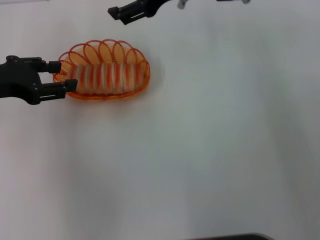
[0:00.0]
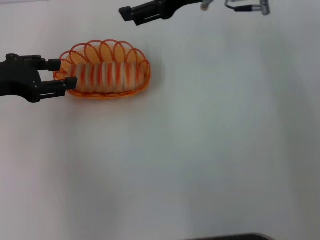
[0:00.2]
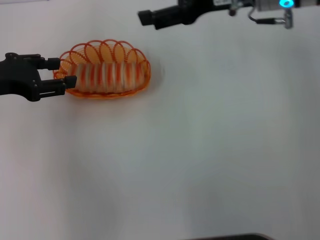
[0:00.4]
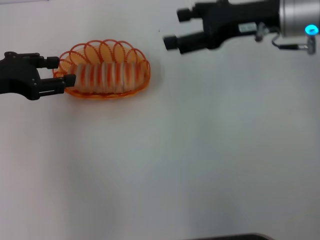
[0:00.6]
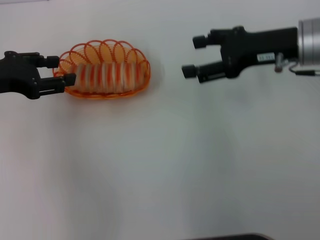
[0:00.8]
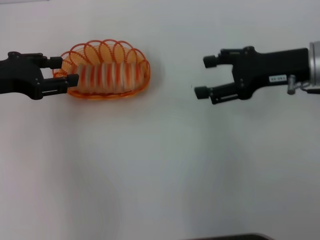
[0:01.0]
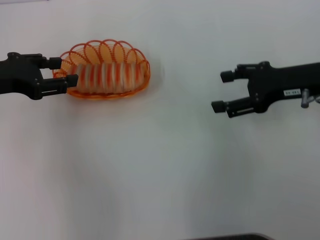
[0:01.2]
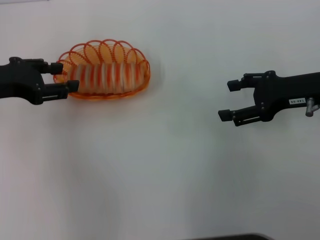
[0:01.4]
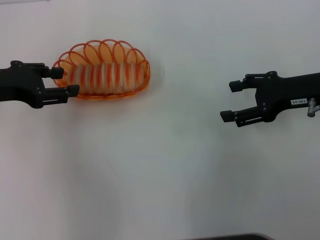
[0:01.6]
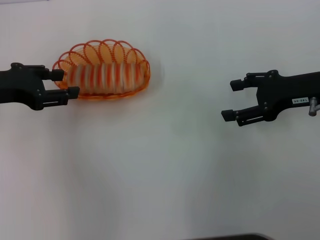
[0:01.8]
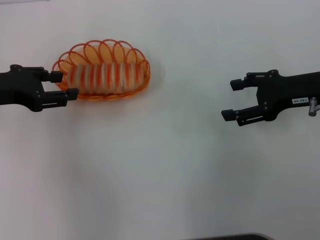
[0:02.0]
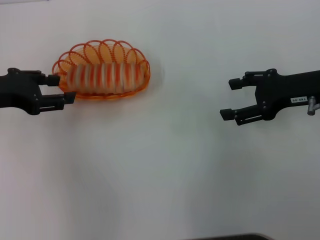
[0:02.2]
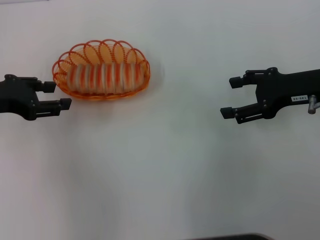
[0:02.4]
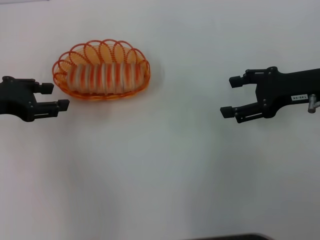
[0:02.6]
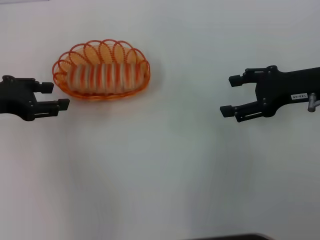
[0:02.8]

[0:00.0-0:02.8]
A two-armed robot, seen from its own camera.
0:00.0 to 0:01.4: The right gripper goes approximately 20 cm to the right, backward and downward.
0:01.4 to 0:02.8: The grippers move only a little.

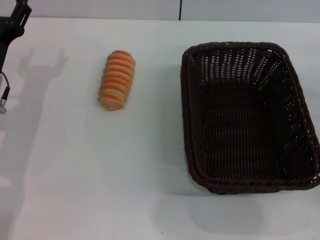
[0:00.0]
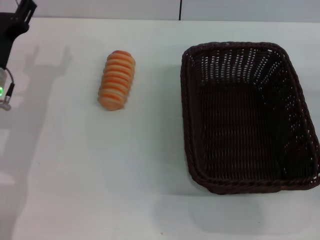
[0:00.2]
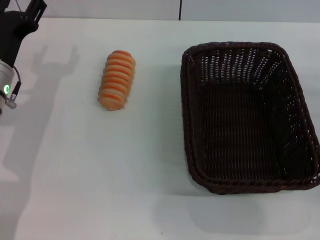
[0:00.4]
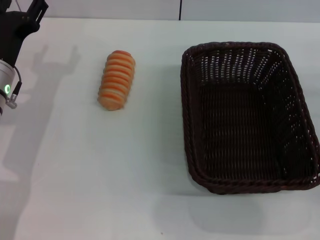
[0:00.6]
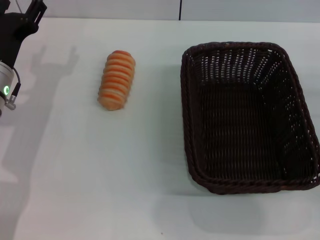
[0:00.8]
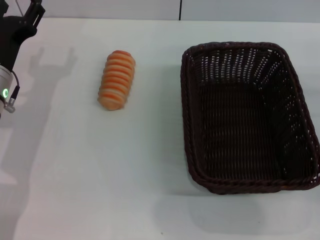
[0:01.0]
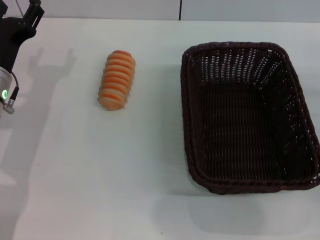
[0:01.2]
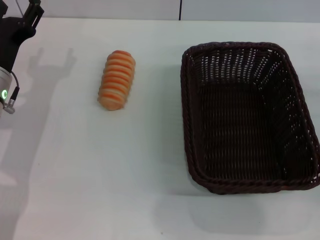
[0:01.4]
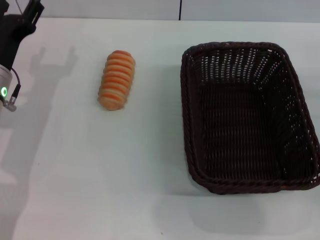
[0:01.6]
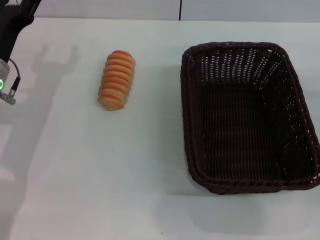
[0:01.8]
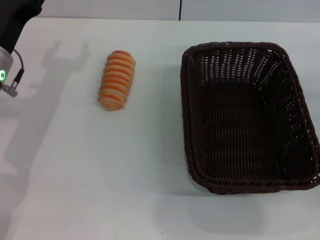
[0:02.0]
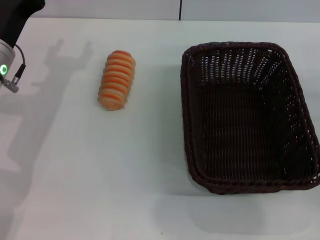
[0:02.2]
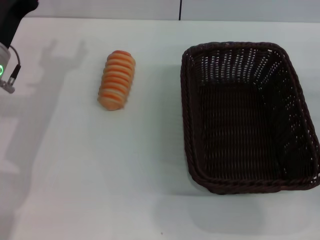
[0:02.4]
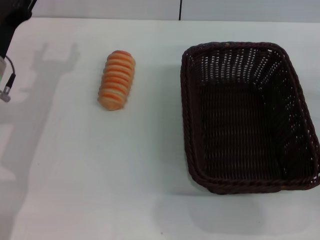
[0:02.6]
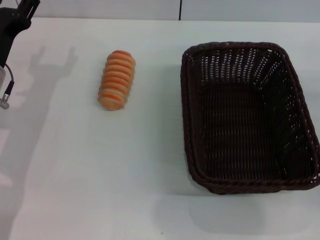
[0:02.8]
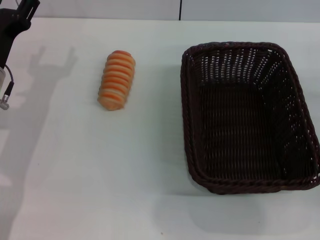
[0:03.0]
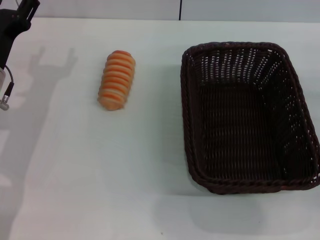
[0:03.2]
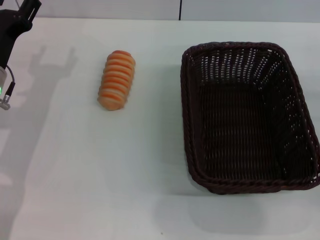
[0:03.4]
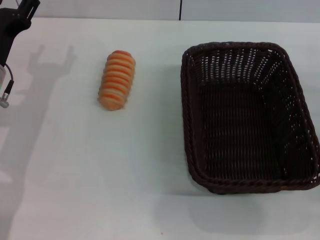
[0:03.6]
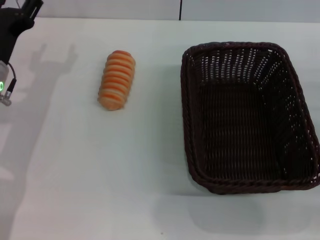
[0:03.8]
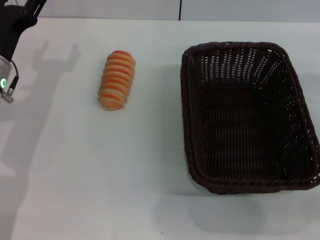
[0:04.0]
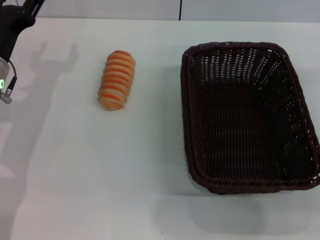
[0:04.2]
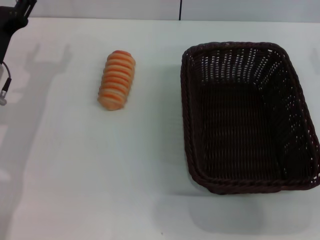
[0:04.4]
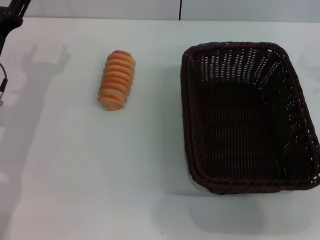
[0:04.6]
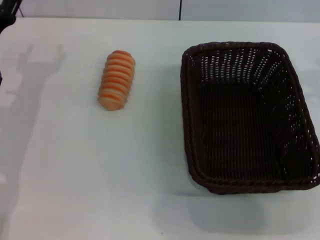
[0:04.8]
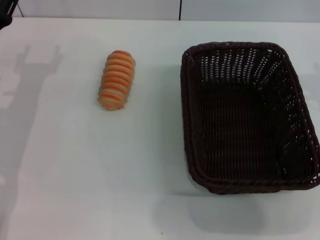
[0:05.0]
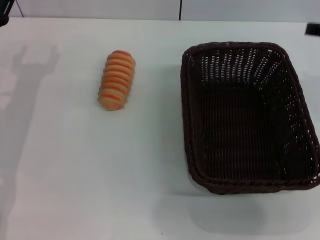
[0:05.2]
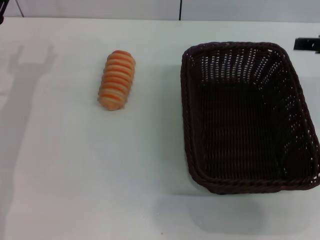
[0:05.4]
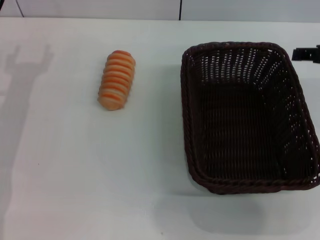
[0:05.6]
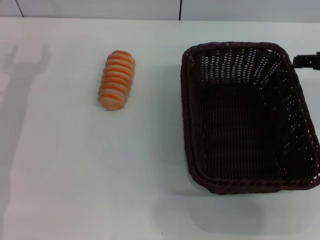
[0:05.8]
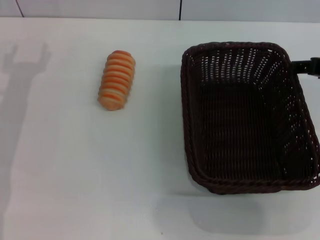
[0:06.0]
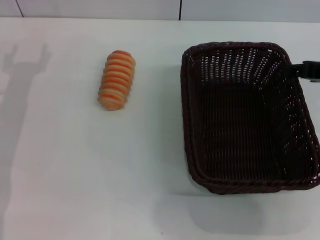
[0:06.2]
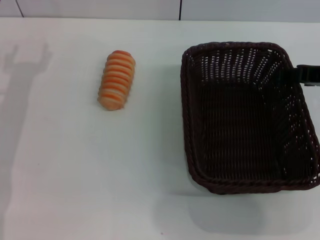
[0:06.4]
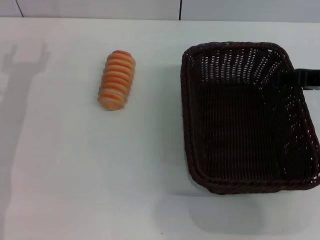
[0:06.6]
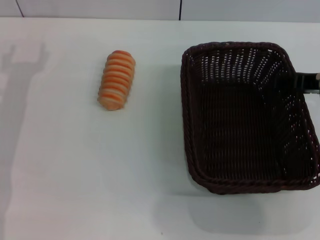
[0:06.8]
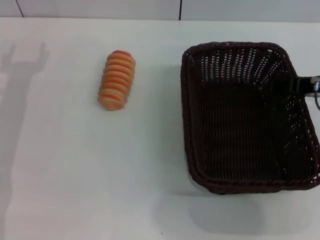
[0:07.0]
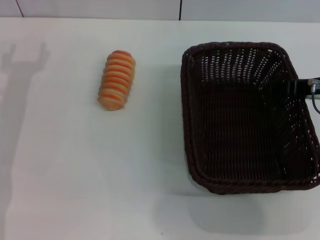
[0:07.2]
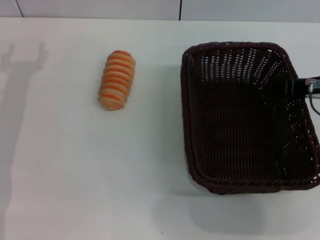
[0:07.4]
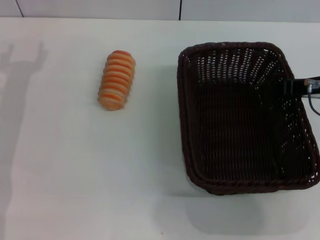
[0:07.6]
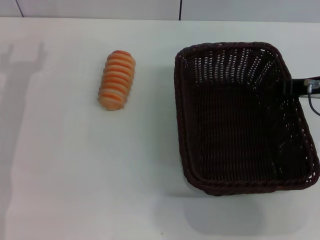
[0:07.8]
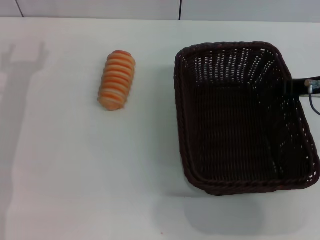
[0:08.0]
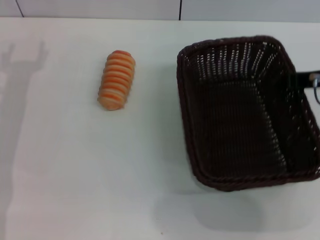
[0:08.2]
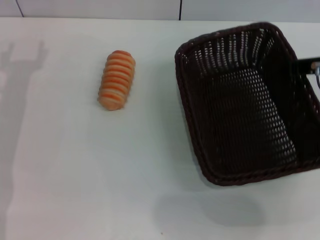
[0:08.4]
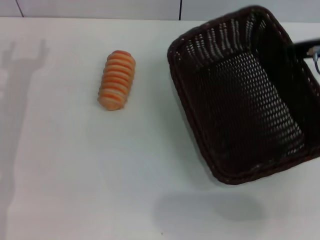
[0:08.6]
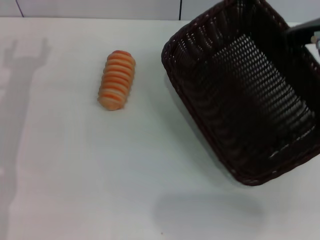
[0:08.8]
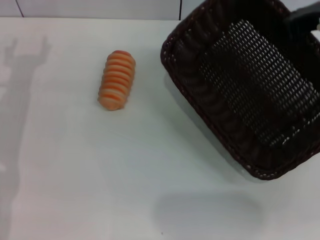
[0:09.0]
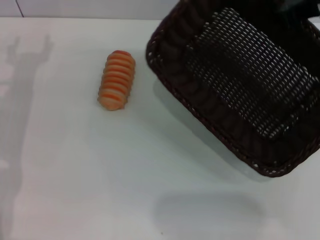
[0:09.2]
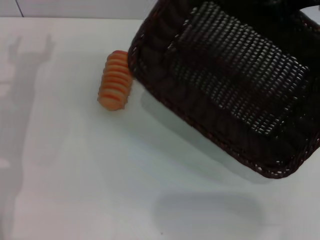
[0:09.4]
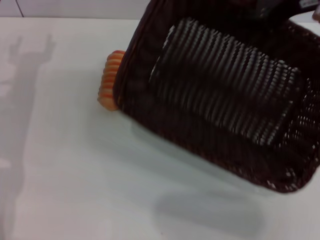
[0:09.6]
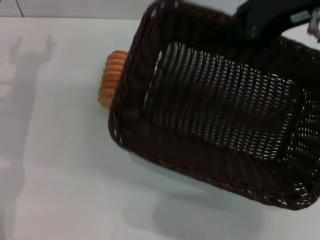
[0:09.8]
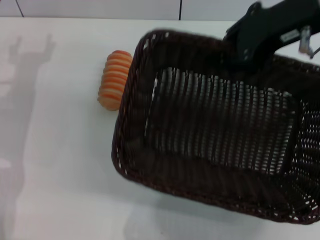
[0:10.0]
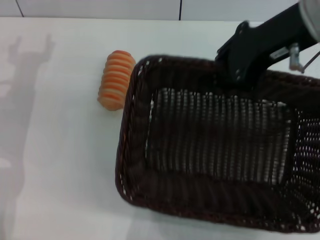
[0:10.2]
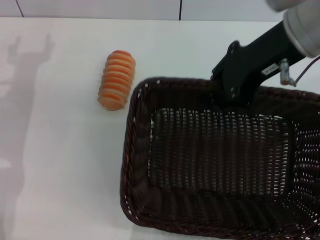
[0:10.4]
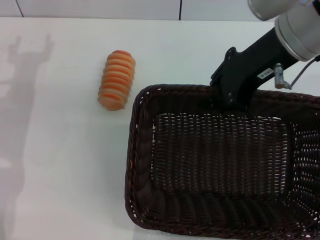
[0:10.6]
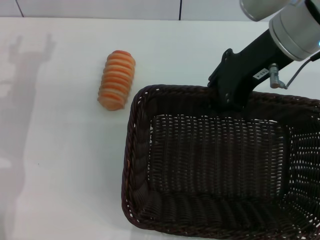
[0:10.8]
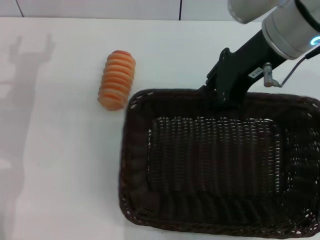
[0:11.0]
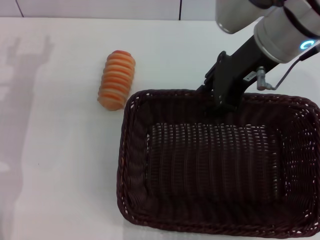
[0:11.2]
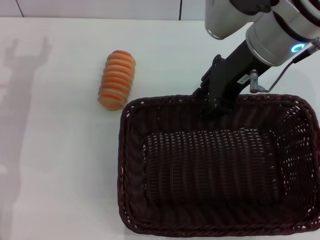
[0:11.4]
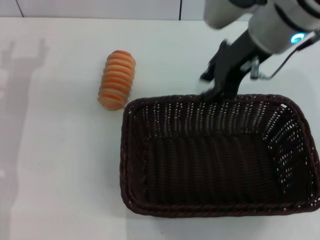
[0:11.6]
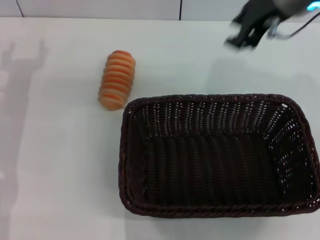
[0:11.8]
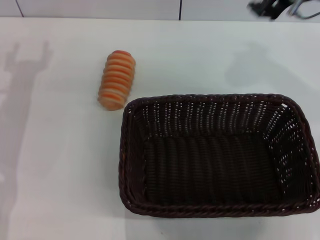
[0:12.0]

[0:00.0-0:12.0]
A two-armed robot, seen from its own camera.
Step, 0:00.0 to 0:08.6: Pick up the dark basket with the right gripper.
Step, 0:09.0 to 0:11.6: Place the dark basket in the center of view with the right gripper.
0:00.0 to 0:03.0: The grippers move only a little.
0:03.0 to 0:04.4: The right gripper shifts about 10 cm upward and to the left.
0:06.0 to 0:07.6: The grippers stay close to where they were, moving slightly.
0:07.6 to 0:09.0: The right gripper goes approximately 10 cm upward, and closes its fingers.
0:09.0 to 0:10.4: The right gripper is displaced to the left by some 10 cm.
0:10.4 to 0:12.0: The right gripper is displaced forward by roughly 5 cm, and opens.

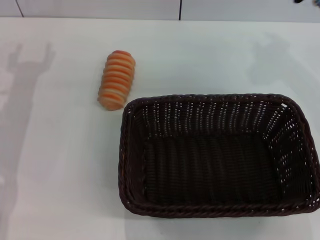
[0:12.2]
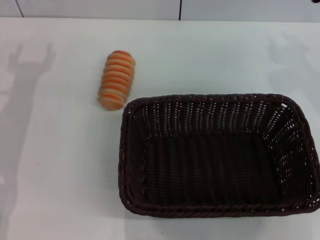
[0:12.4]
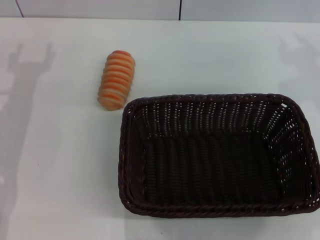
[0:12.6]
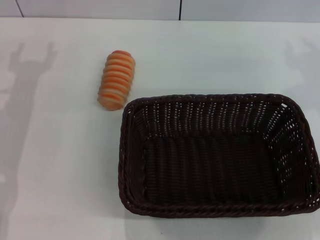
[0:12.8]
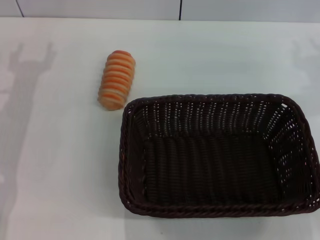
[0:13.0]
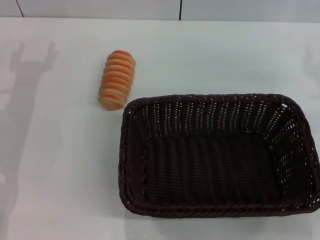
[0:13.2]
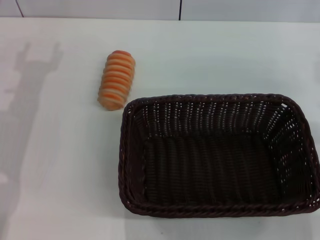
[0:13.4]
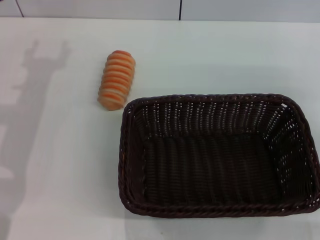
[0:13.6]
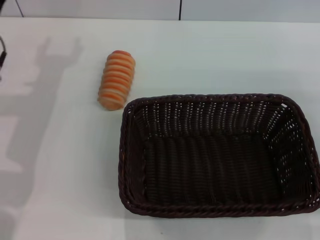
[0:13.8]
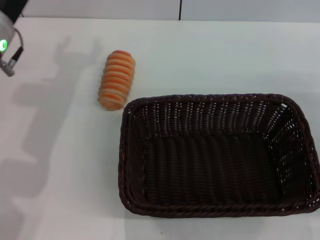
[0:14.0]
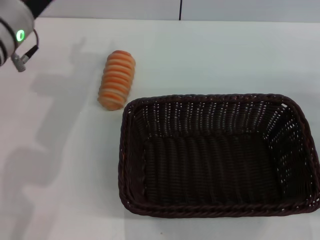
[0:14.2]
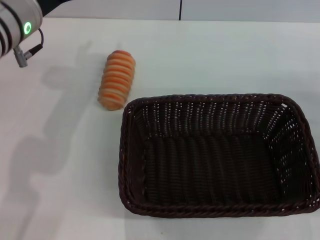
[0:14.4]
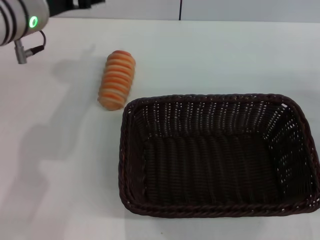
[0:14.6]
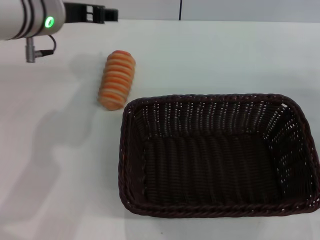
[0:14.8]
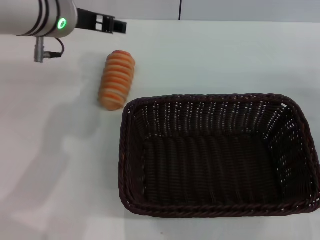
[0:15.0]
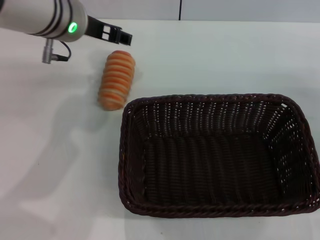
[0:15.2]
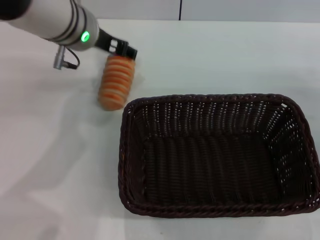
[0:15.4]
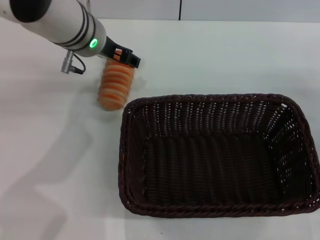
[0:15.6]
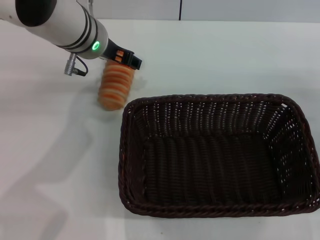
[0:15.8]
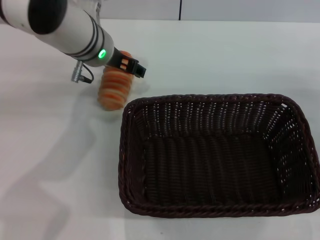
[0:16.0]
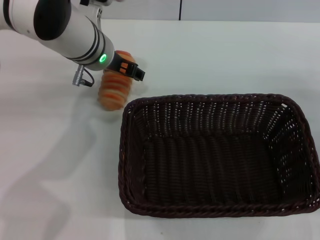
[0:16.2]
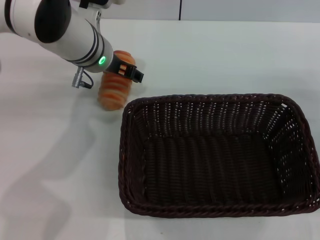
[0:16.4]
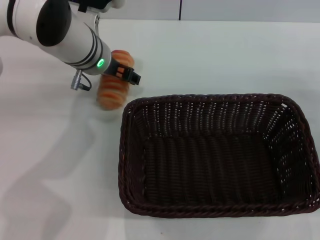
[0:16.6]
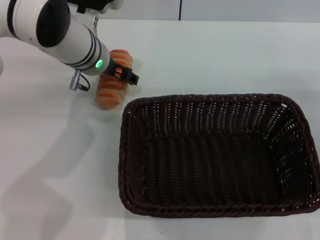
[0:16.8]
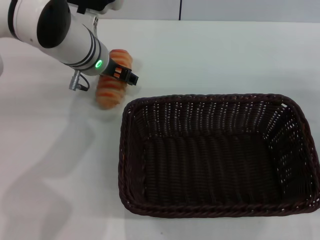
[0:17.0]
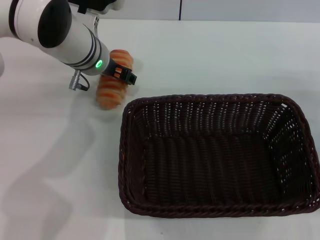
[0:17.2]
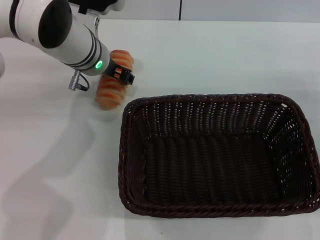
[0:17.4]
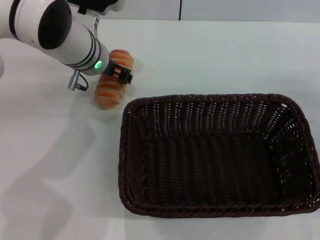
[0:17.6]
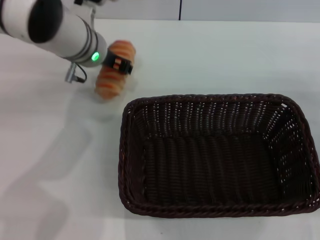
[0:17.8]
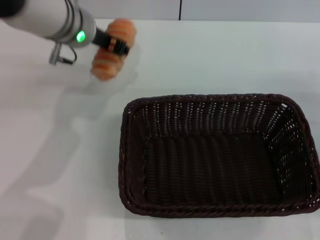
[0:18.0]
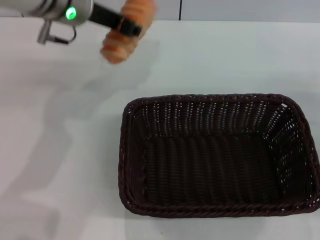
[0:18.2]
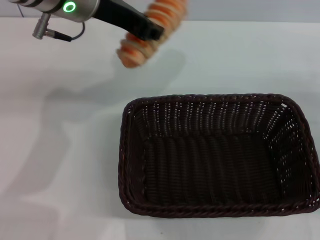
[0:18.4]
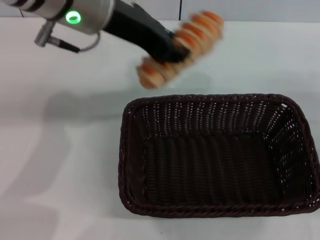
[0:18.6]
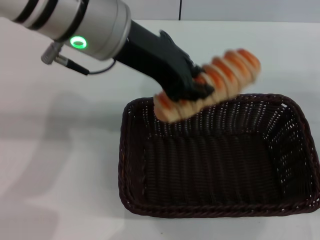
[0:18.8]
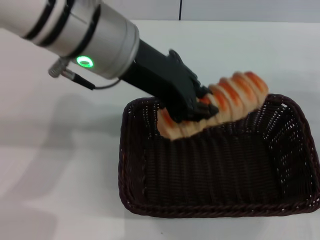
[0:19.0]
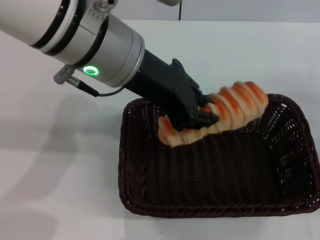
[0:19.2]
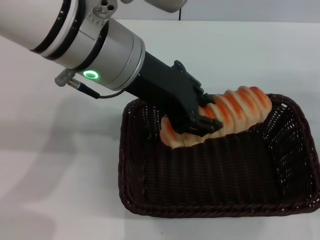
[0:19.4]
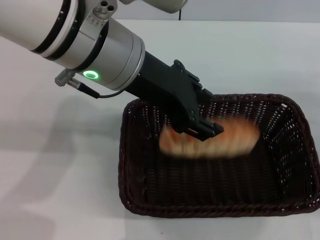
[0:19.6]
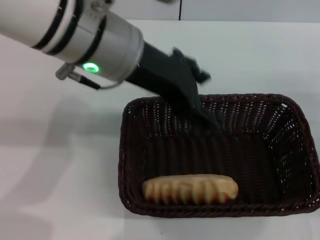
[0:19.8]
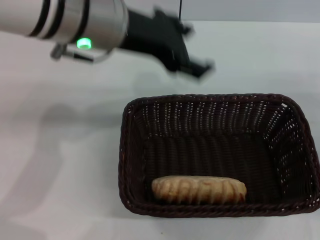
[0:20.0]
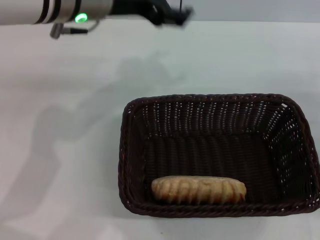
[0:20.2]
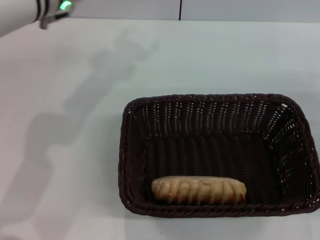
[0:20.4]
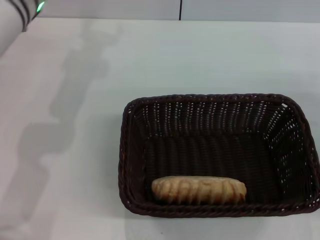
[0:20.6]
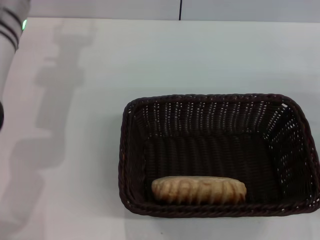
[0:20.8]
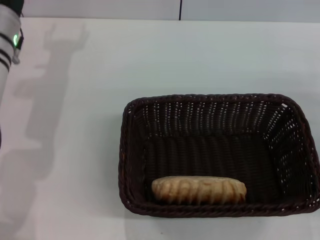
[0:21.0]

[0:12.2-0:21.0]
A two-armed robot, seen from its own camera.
Step, 0:12.2 to 0:18.2: Pick up the long bread with the left gripper.
Step, 0:18.4 to 0:19.6: Place the long bread into the dark basket with the left gripper.
0:12.2 to 0:13.6: The right gripper shifts some 20 cm downward, backward and to the right.
0:13.6 to 0:15.2: The left gripper travels to the right, upward and forward by roughly 15 cm.
0:15.2 to 0:16.6: The left gripper goes roughly 5 cm downward.
0:16.6 to 0:18.0: The left gripper closes.
0:18.0 to 0:19.6: The left gripper travels backward, upward and to the right by approximately 15 cm.
0:19.6 to 0:21.0: The left gripper goes approximately 20 cm to the left, downward and forward, and opens up.
